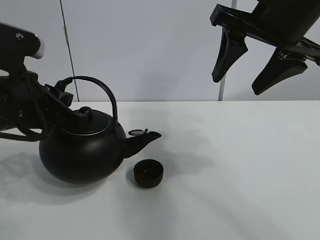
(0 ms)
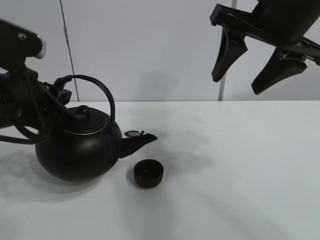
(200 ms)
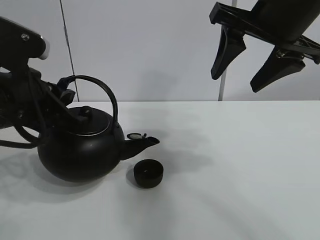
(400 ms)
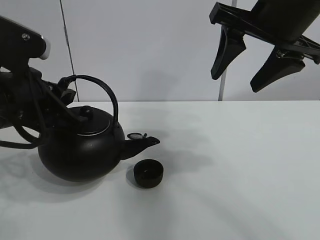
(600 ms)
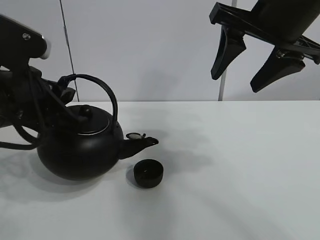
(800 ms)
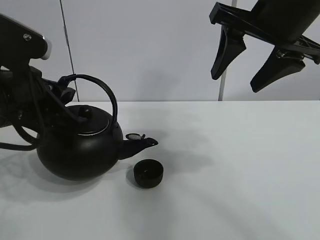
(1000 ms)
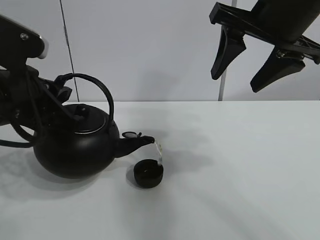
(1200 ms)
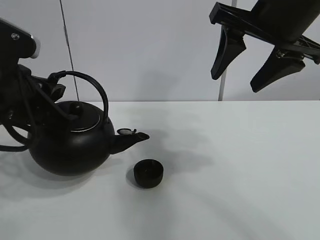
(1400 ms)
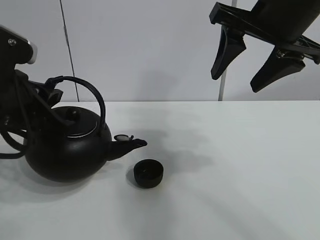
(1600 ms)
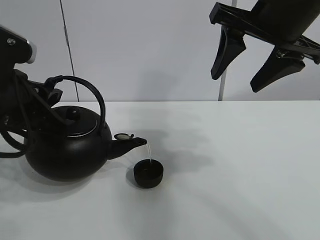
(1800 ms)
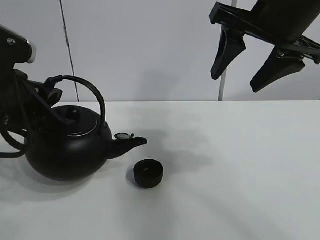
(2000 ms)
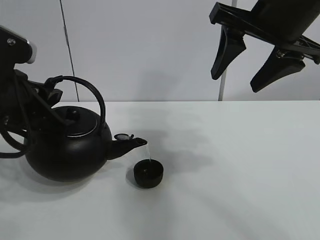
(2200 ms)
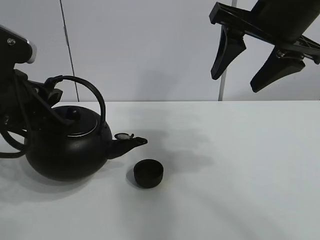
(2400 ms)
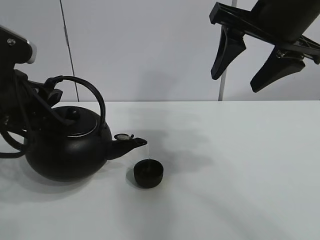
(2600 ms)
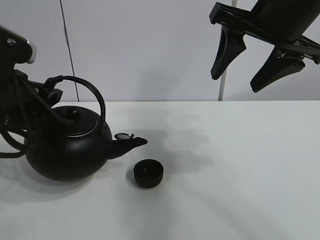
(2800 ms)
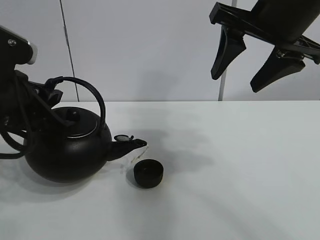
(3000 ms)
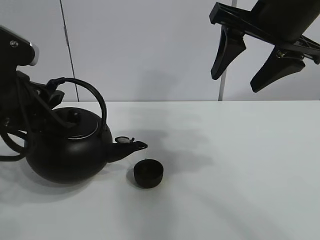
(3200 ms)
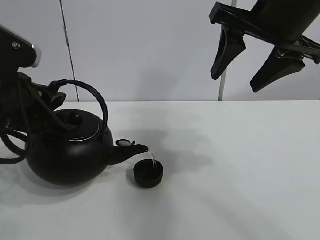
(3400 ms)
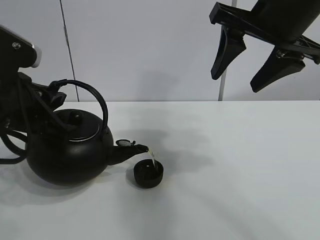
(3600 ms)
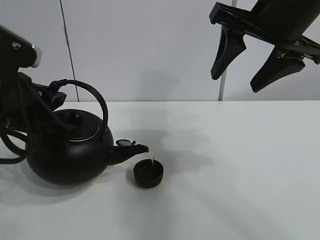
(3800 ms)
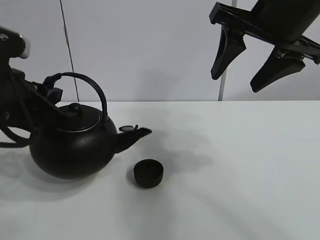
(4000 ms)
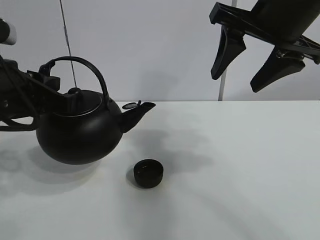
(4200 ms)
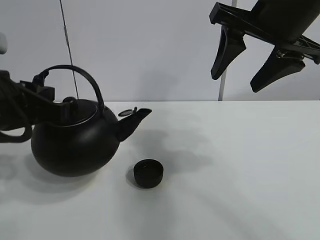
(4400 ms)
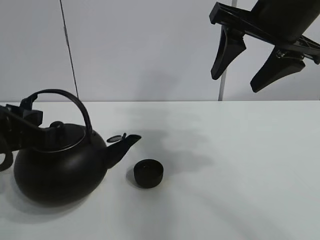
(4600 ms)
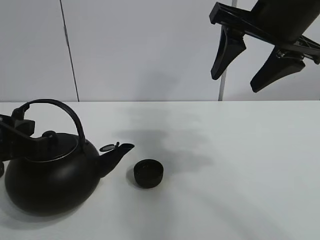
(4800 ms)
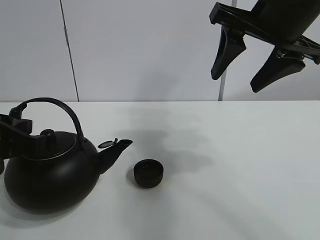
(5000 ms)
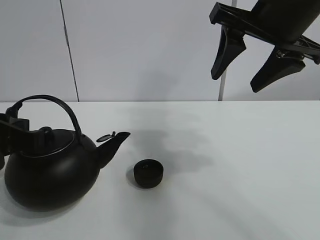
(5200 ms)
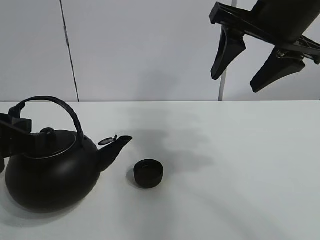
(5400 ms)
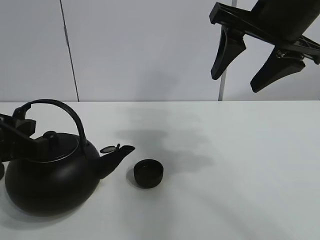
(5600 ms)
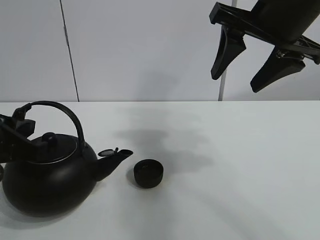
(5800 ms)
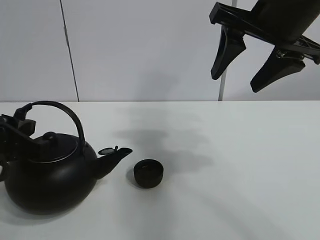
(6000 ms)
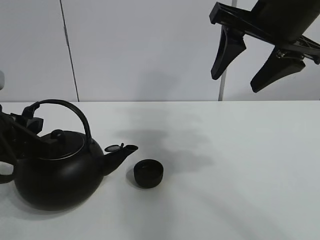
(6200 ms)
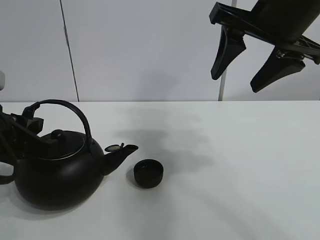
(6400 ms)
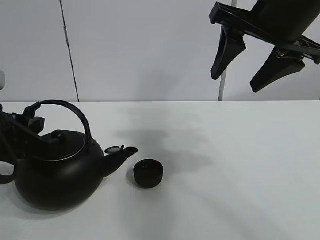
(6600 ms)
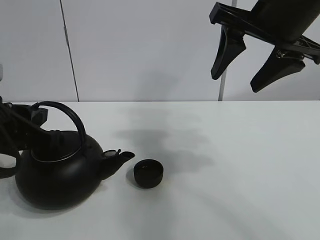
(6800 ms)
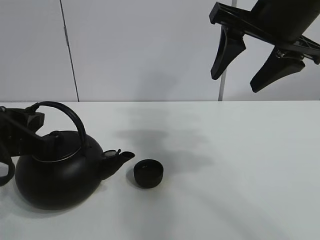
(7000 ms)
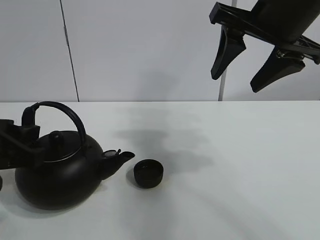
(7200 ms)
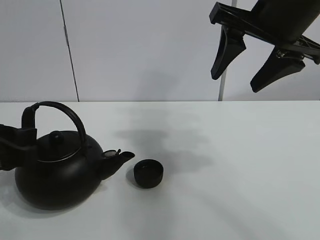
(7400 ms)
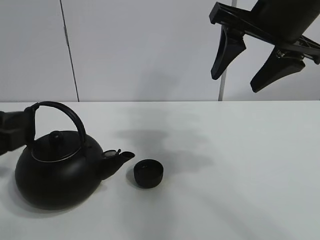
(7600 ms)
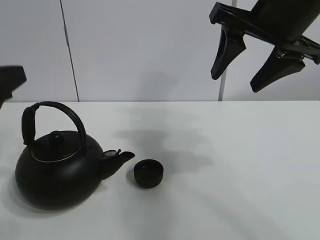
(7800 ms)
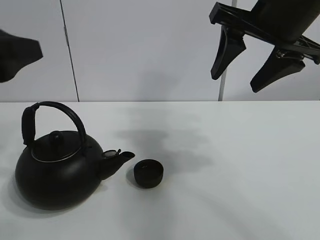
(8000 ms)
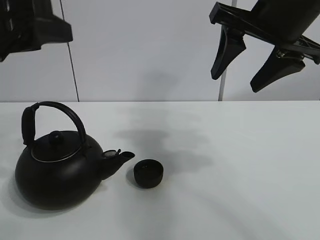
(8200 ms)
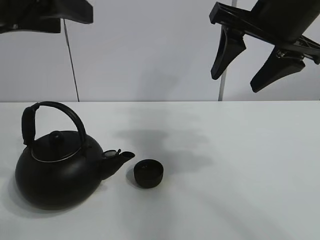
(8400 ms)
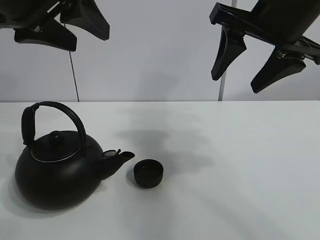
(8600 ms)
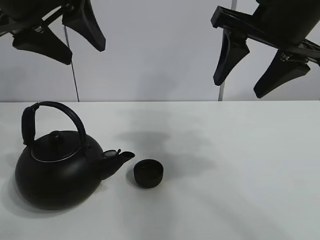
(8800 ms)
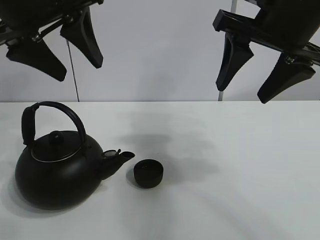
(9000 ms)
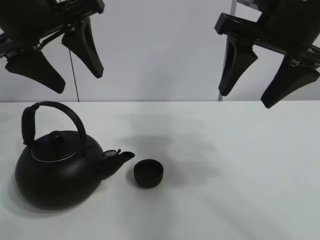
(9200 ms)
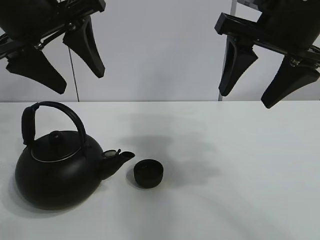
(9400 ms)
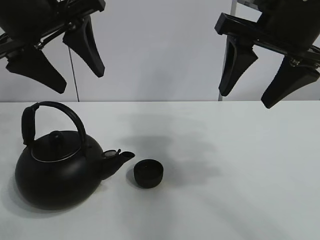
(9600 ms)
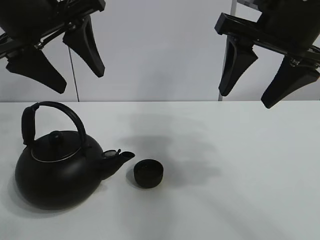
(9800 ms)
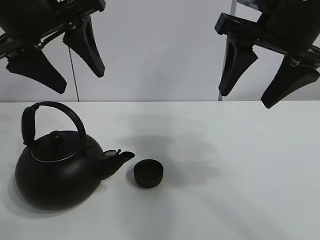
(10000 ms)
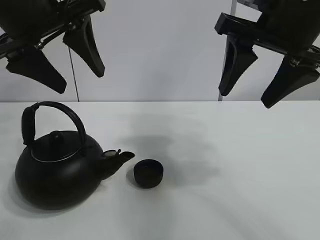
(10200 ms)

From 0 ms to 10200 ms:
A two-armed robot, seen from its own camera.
Task of the whole recording: pour tea into the teacup.
Step, from 0 ms to 3800 ms: Pour tea into the teacup with the left gripper.
From 0 ms to 1400 ms: There are only small adjustments of the grippers.
From 1400 ms to 3000 ms: The two grippers keep their place.
From 3000 ms to 4400 ms: There are only small adjustments of the grippers.
From 4400 ms to 5800 ms: The grippers make only small movements.
From 5800 ms to 7200 ms: The left gripper opens its fingers.
From 7200 ms to 8800 ms: The left gripper heads upward and forward, covering some 20 cm.
From 8800 ms to 10200 ms: The grippers stay close to where they were, moving slightly.

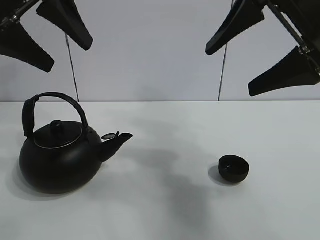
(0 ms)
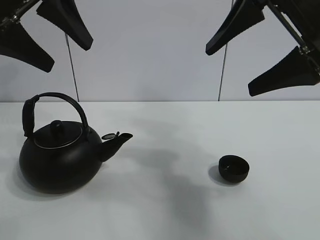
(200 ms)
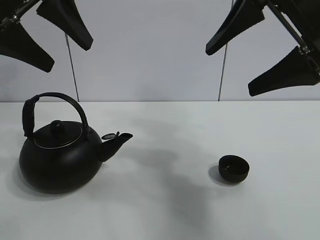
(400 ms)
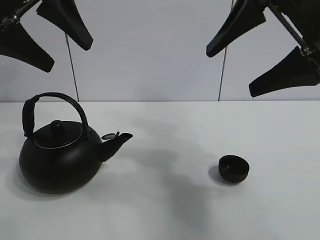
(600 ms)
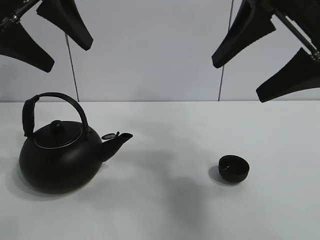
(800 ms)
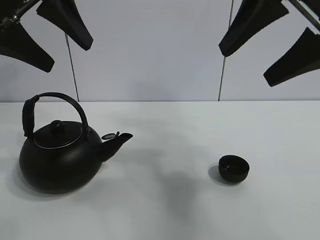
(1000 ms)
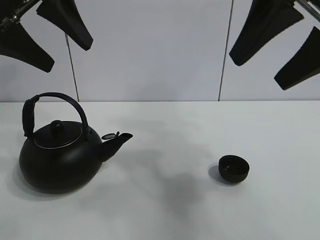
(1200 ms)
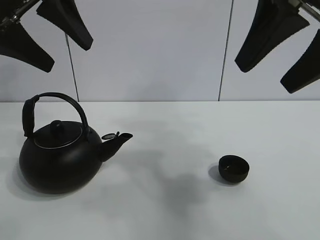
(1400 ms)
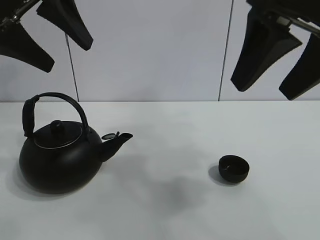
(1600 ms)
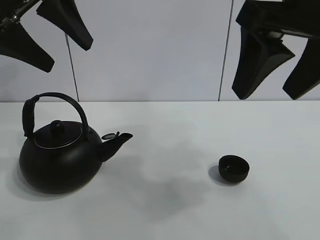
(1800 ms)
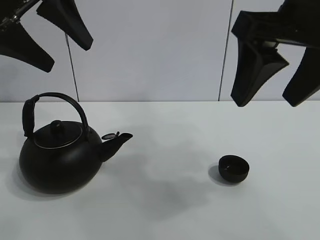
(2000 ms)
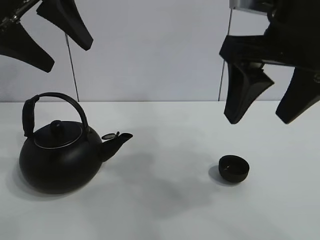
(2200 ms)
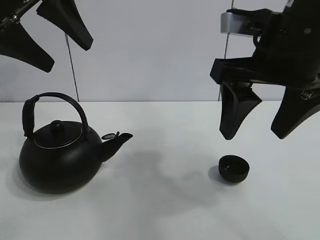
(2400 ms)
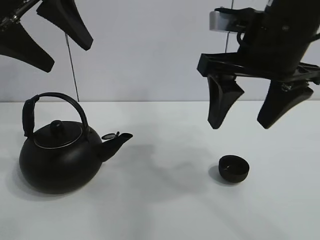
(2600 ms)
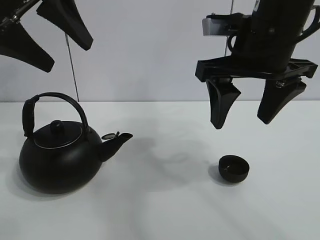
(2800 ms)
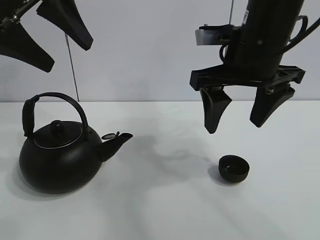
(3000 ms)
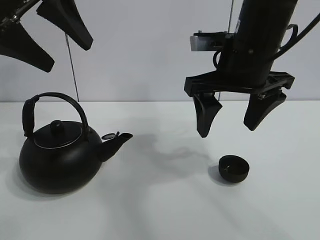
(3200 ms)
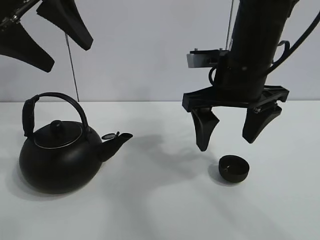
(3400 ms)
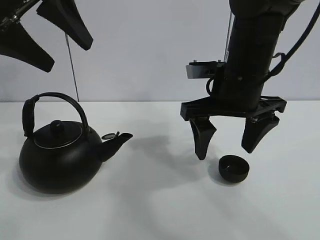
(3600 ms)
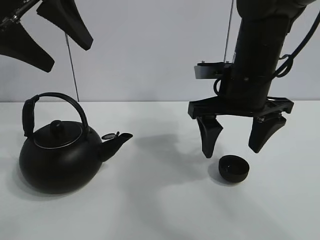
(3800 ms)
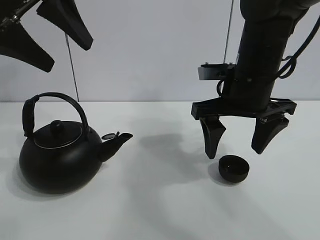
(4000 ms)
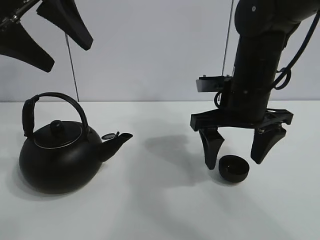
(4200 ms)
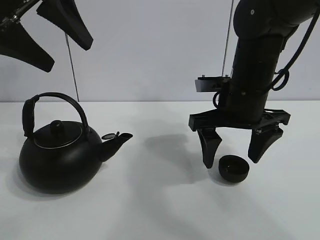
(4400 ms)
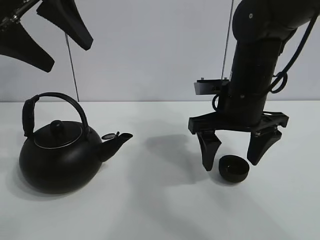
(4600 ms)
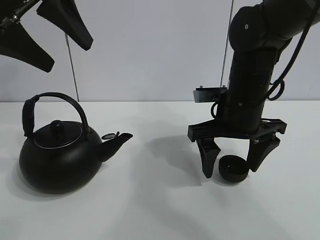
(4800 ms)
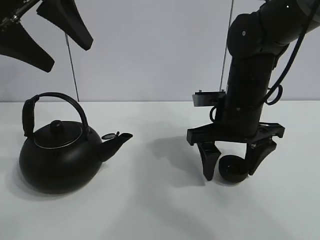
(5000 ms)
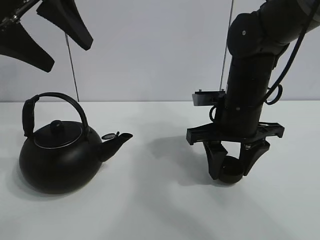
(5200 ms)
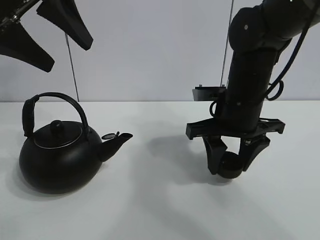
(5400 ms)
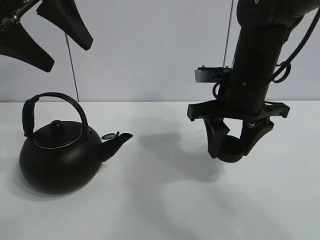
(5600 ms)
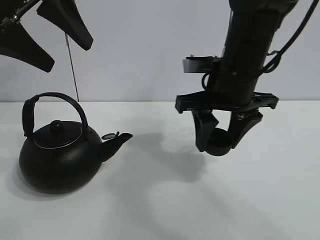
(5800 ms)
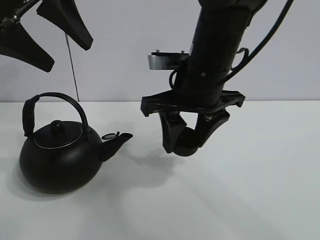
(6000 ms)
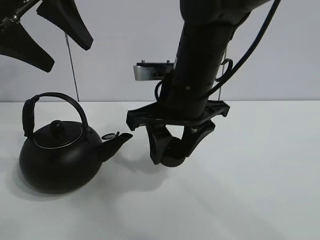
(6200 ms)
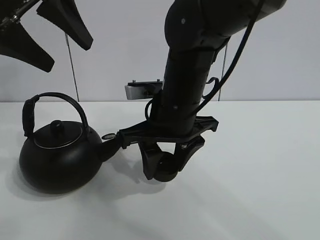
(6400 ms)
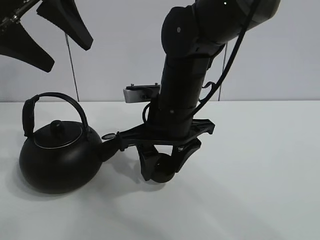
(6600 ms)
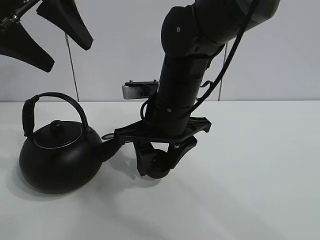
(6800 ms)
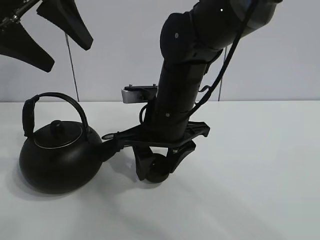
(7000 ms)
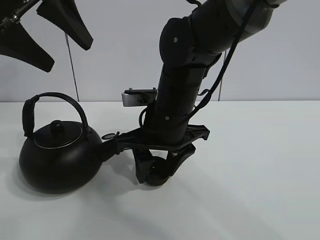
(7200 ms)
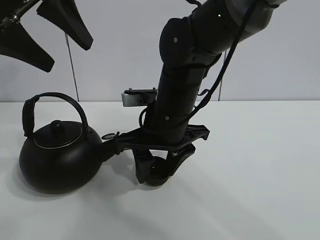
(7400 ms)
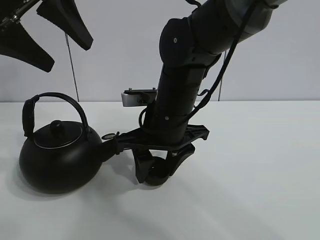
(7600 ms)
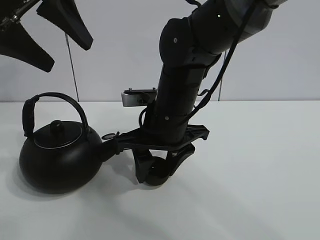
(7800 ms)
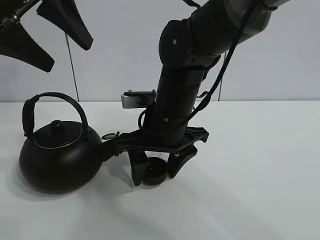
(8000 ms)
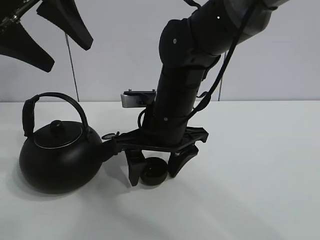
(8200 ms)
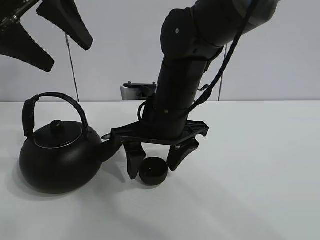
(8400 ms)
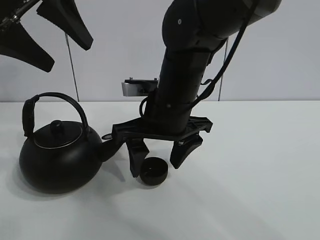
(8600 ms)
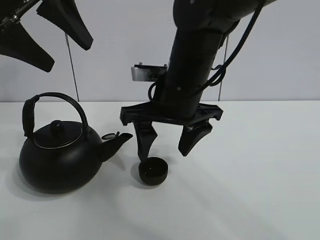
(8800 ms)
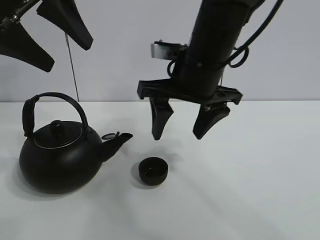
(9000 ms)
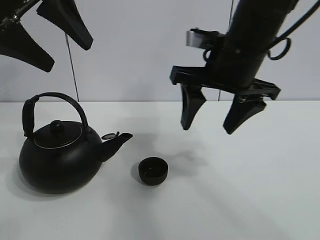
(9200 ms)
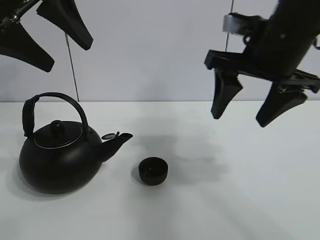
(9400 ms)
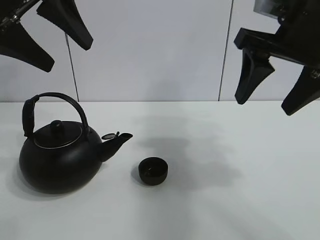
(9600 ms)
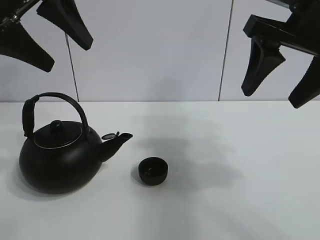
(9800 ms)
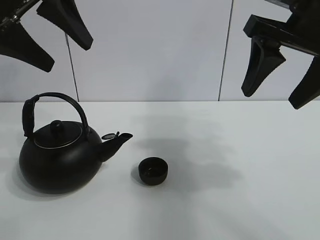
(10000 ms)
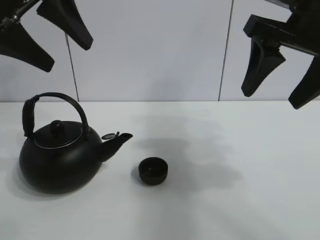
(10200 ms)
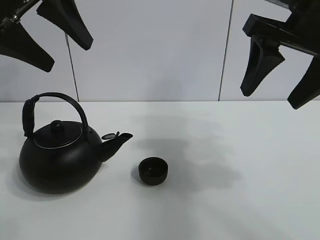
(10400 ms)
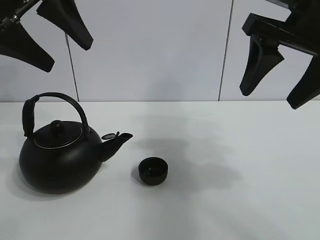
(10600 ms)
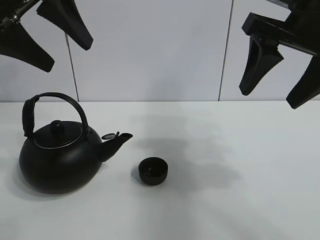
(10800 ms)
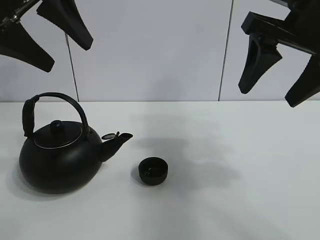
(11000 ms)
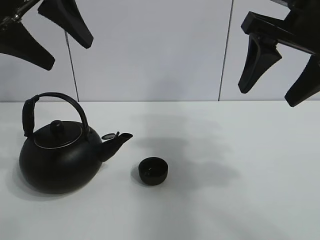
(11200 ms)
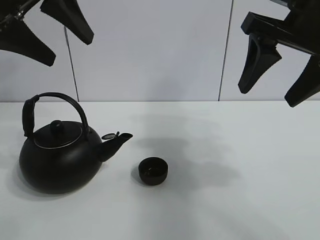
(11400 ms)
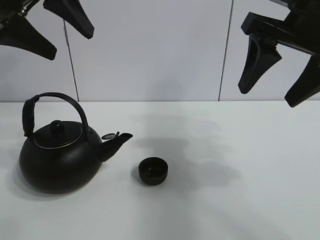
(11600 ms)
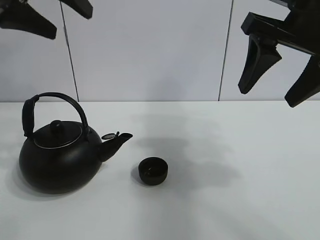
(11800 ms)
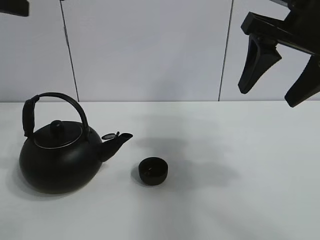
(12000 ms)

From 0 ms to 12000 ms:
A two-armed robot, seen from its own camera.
Task of the whole recording: pour tea into the teacup.
Step, from 0 ms to 5000 ms: Pick up the teacup with the right gripper.
Step, from 5200 ms to 8200 ms: Place the teacup in the center of view with the right gripper.
From 1600 ms to 3000 ms: The right gripper is displaced forward and downward by approximately 10 cm.
From 3000 ms to 4400 ms: The right gripper is displaced downward by roughly 10 cm.
From 4400 ms to 6000 ms: The right gripper is displaced to the left by roughly 5 cm, and closes.
From 6000 ms to 7600 ms: The right gripper heads downward, covering some 5 cm.
From 7600 ms to 9000 ms: The right gripper travels upward by about 5 cm, and opens.
From 9000 ms to 10400 ms: The right gripper heads to the right, upward and backward, covering approximately 15 cm.
